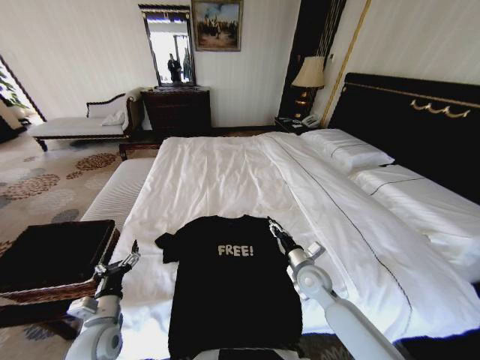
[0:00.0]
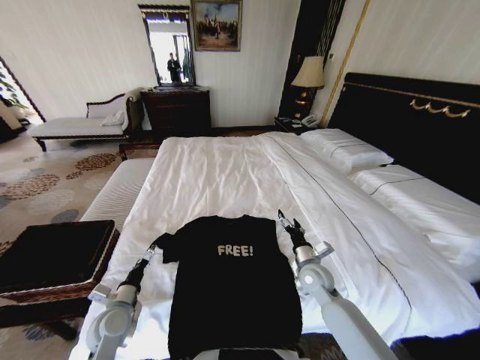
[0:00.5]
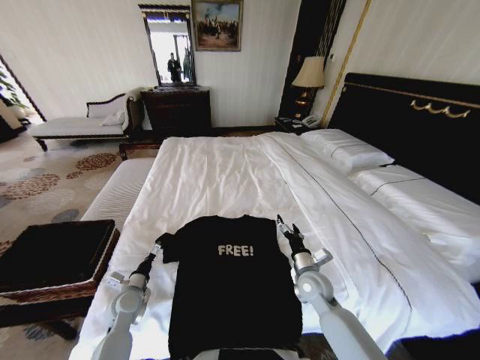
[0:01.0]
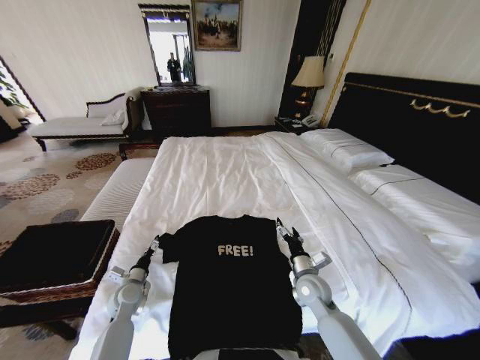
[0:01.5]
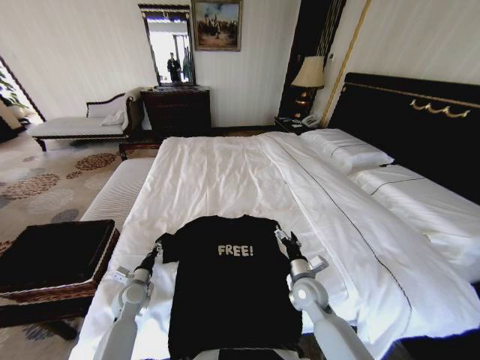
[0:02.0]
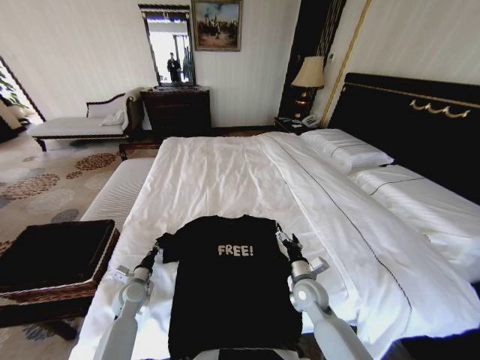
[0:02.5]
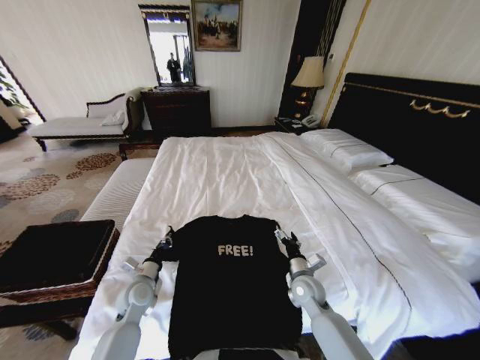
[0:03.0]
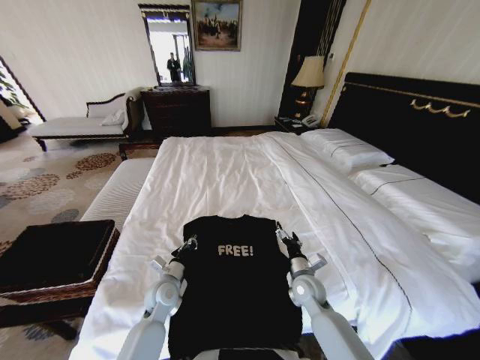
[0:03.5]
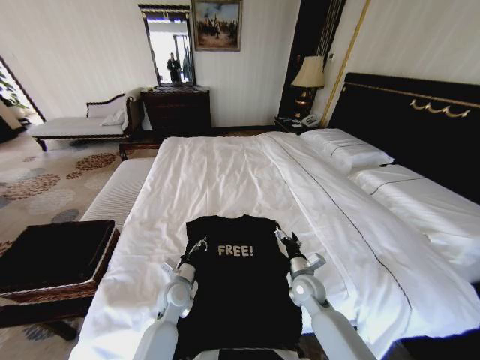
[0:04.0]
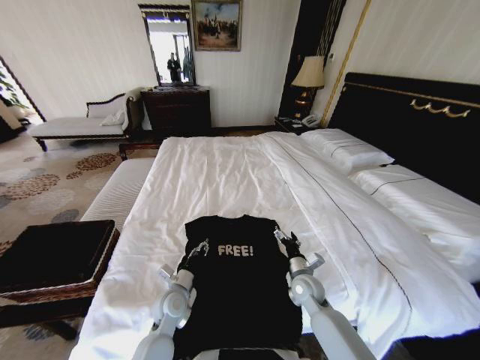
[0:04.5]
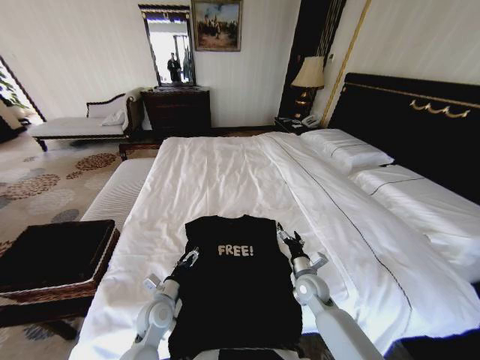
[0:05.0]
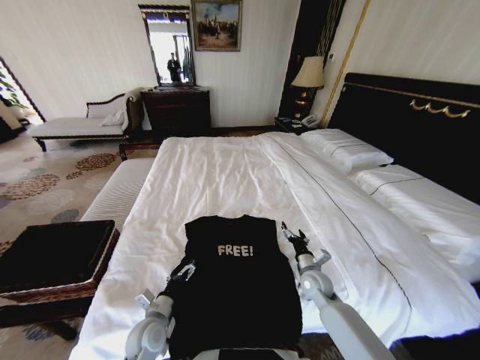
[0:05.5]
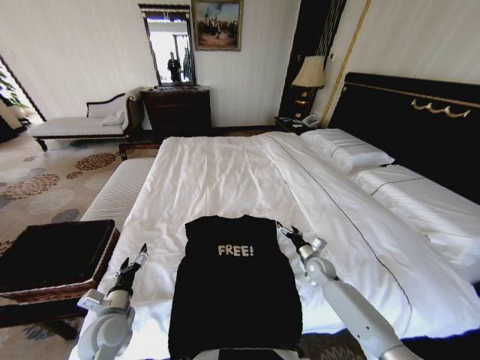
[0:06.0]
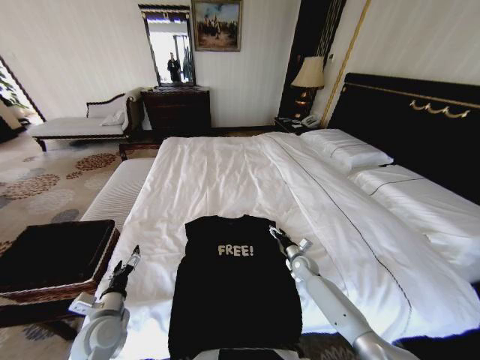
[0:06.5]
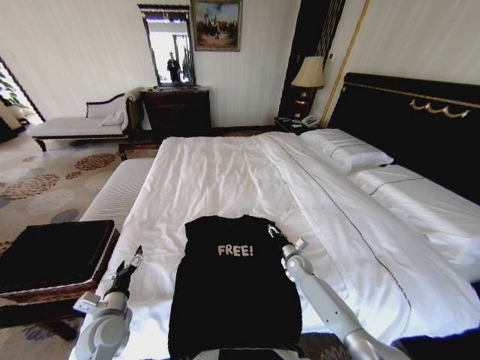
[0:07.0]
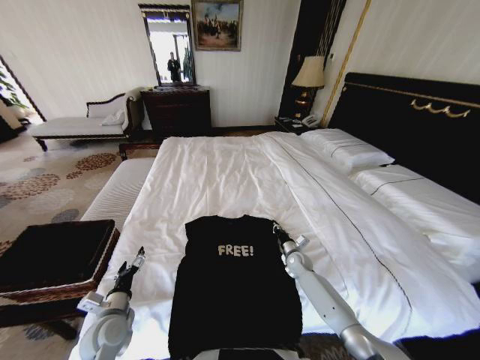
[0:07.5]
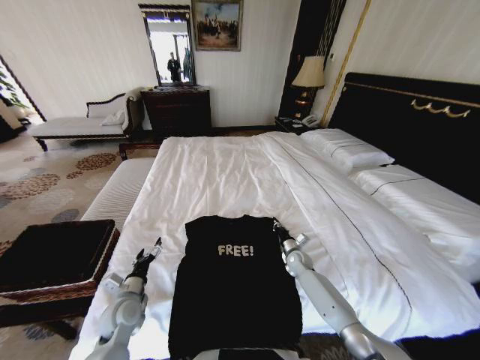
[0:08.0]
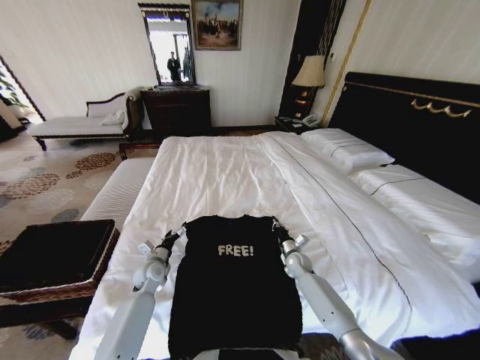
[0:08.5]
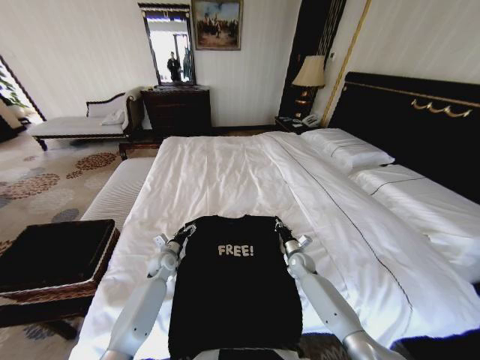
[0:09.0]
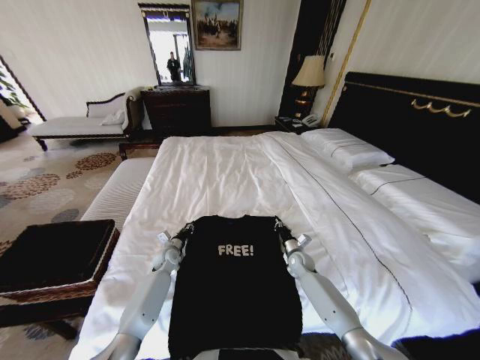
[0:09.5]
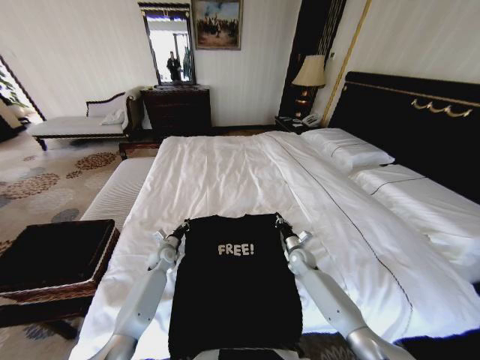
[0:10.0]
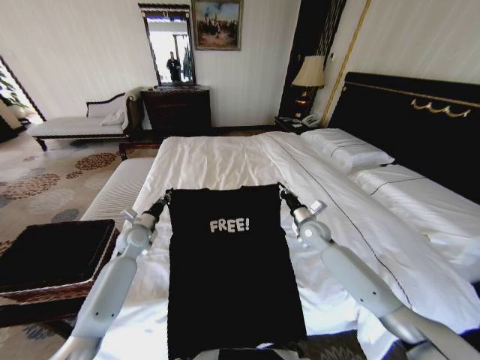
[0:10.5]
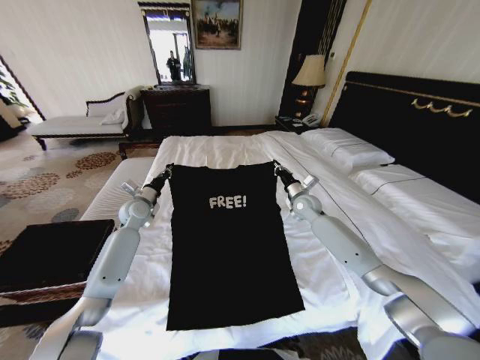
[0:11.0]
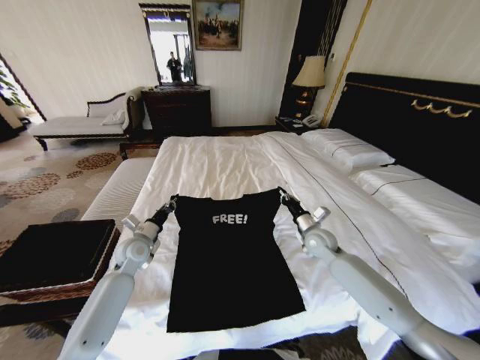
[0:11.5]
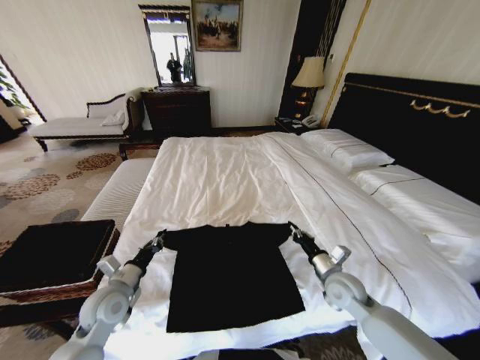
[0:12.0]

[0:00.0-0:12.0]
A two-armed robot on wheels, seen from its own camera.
Task of the whole recording: Fold the clothes on the bed and place them into the basket.
0:00.0 to 0:02.0: The left gripper travels forward and downward by some 15 cm, and closes. Meanwhile the right gripper opens its fingers.
0:02.0 to 0:04.0: The left gripper travels to the right by about 15 cm, and closes.
0:04.0 to 0:06.0: The left gripper moves to the left and backward, approximately 15 cm, and opens up; the right gripper moves to the right and forward, approximately 15 cm.
0:06.0 to 0:08.0: The right gripper is displaced to the left by roughly 5 cm, and closes its fingers; the left gripper moves forward, approximately 5 cm.
0:08.0 to 0:10.0: The left gripper heads forward, covering approximately 20 cm, and closes up.
0:10.0 to 0:12.0: Both grippers move backward and upward, roughly 20 cm.

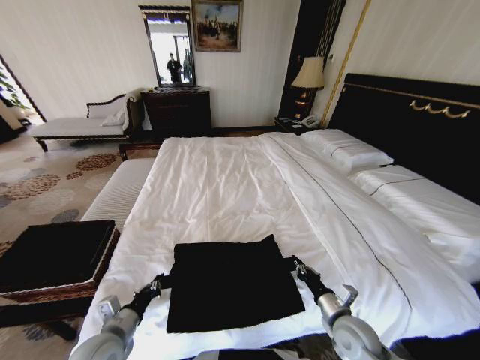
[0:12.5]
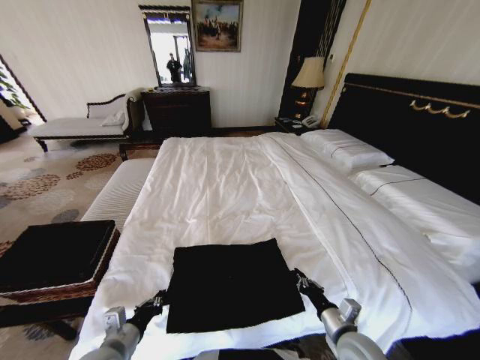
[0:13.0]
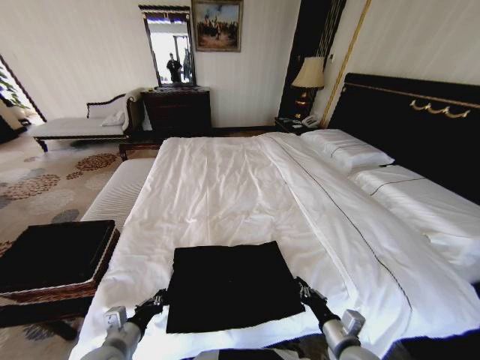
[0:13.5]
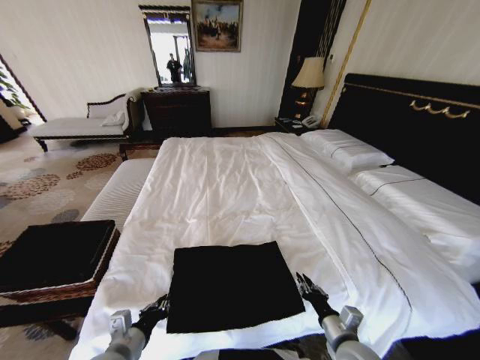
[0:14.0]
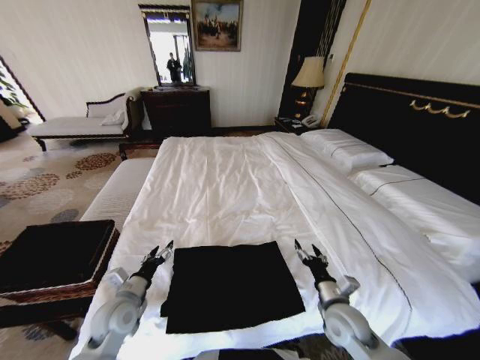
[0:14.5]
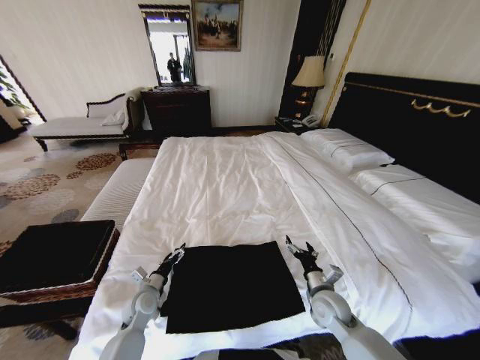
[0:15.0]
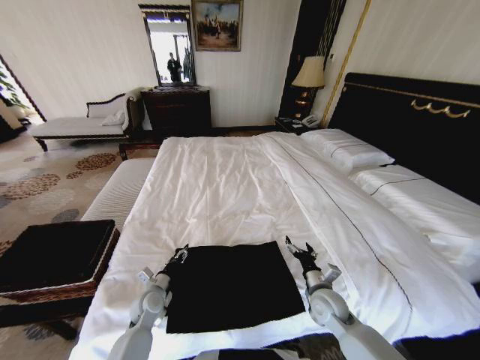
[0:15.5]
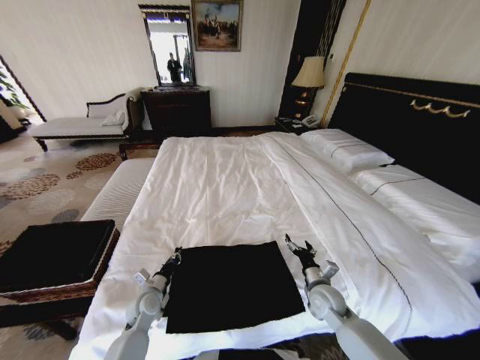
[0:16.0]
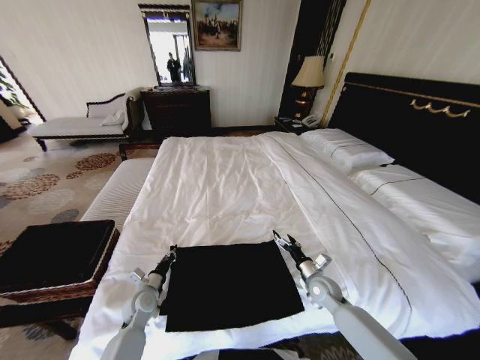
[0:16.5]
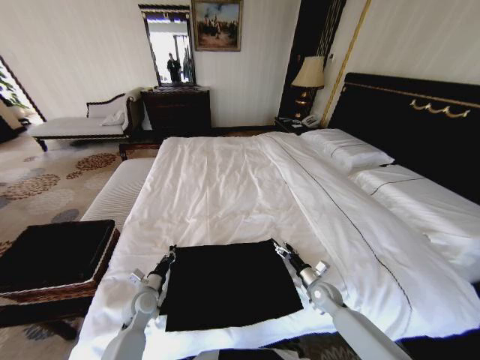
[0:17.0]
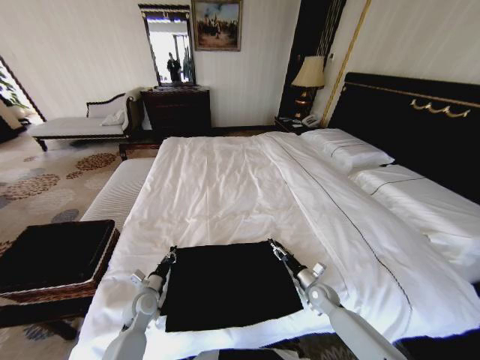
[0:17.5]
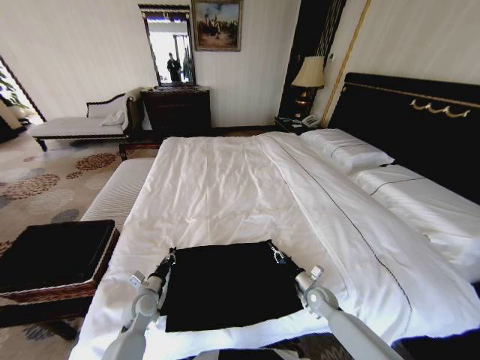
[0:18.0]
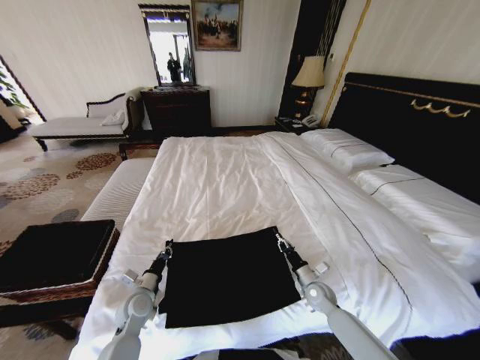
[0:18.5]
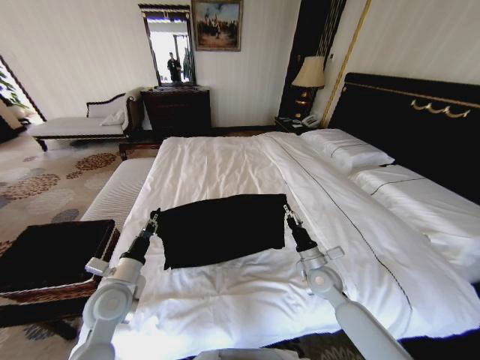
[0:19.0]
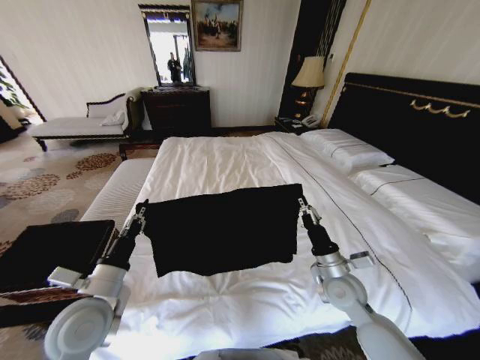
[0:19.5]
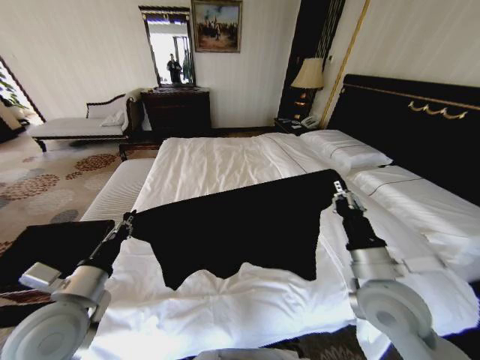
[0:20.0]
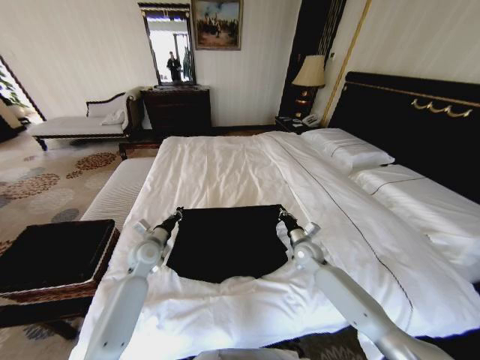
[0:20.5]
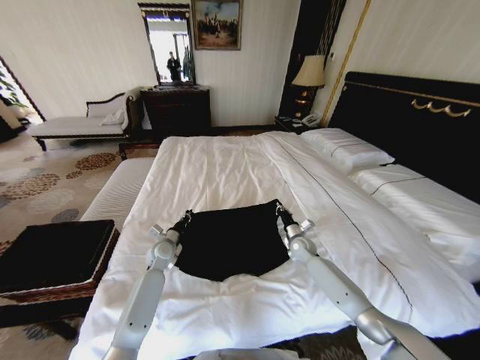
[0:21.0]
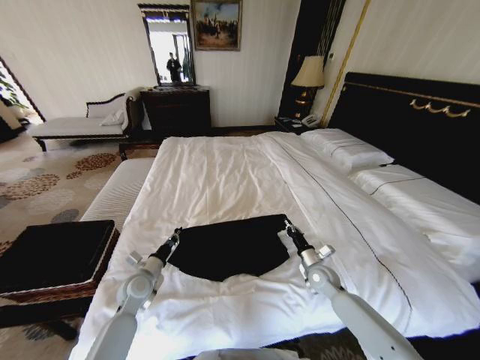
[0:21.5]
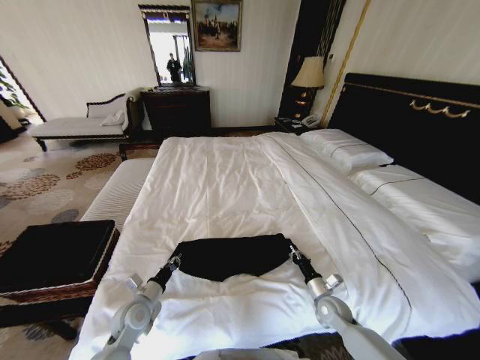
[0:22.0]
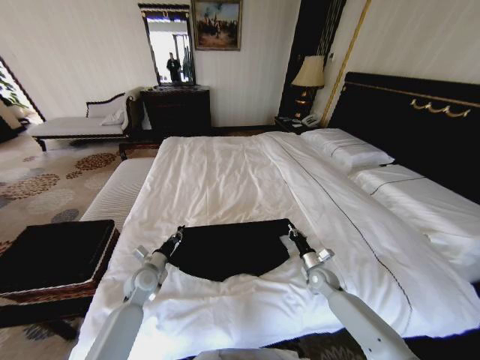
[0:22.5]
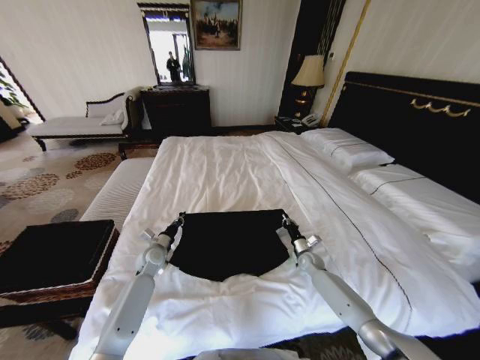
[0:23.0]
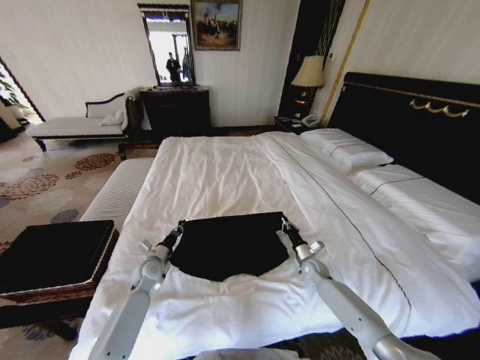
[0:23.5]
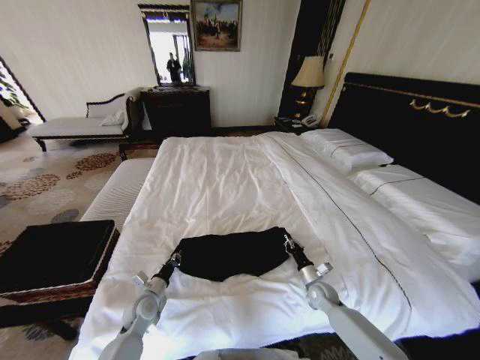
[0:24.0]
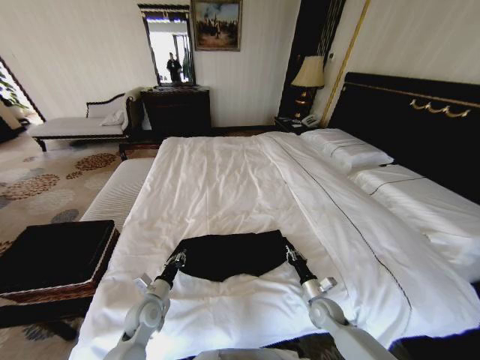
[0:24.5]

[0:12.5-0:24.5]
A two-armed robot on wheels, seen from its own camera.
Task of the whole recording: Fold the clothes on the bed and place them into the basket.
0:12.5 to 0:14.5: The right gripper travels backward and back again, about 5 cm each way, and opens up. Meanwhile the left gripper travels forward by some 5 cm, and opens up.
0:14.5 to 0:16.5: The right gripper is displaced forward and downward by roughly 15 cm. The left gripper is displaced downward and forward by roughly 10 cm, and closes.
0:16.5 to 0:18.5: The right gripper closes up.
0:18.5 to 0:20.5: The right gripper goes about 15 cm upward and forward; the left gripper goes about 15 cm forward and upward.
0:20.5 to 0:22.5: The right gripper moves forward and backward over approximately 20 cm, changing direction 2 times. The left gripper goes forward and backward, some 20 cm each way, reversing 2 times.
0:22.5 to 0:24.5: The left gripper goes forward and returns, about 10 cm each way. Meanwhile the right gripper travels backward by approximately 5 cm.

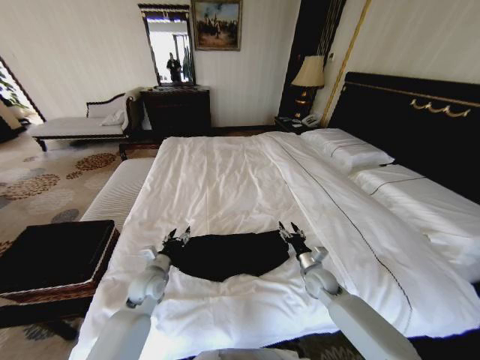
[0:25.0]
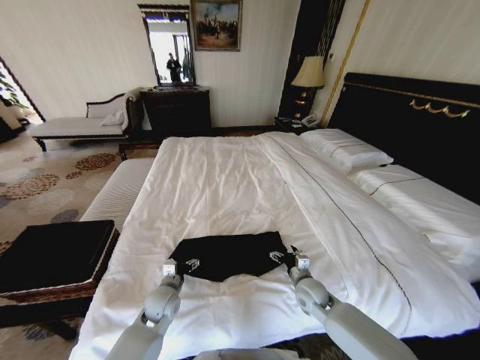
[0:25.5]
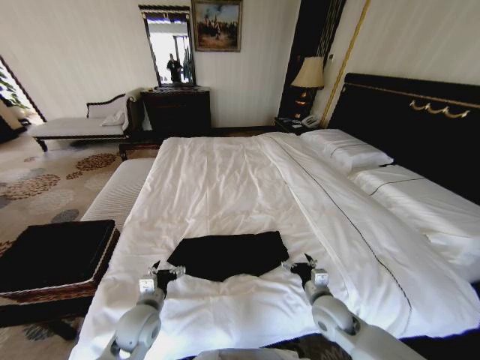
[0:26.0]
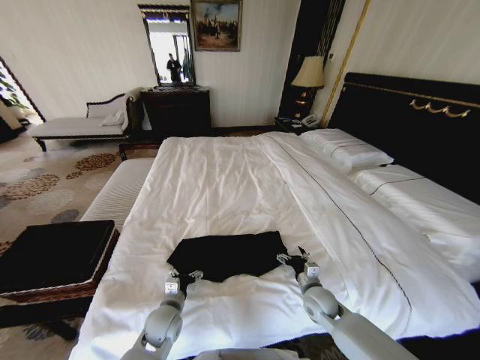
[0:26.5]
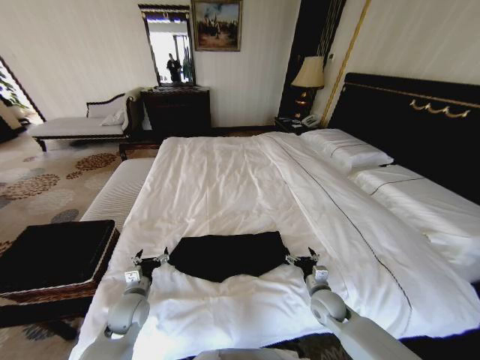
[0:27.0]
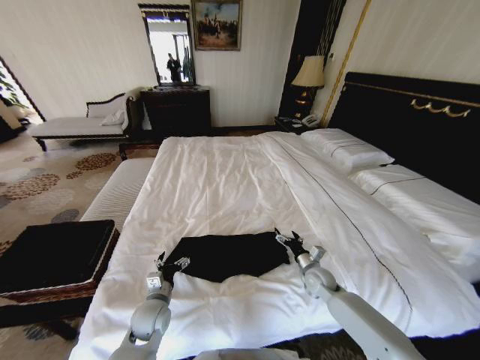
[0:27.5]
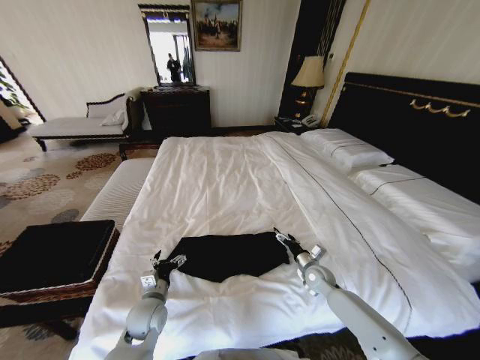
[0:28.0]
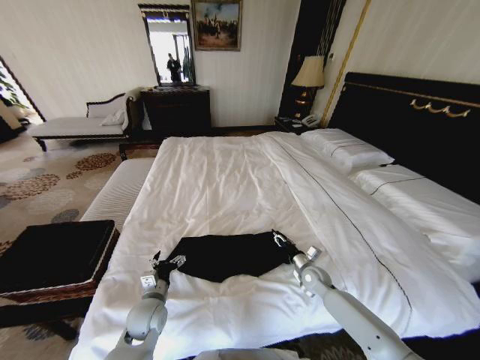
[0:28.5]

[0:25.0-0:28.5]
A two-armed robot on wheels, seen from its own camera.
Task of the whole recording: Fold the clothes on the bed and place them into the basket.
0:25.0 to 0:27.0: The two grippers go roughly 5 cm backward. The right gripper opens up.
0:27.0 to 0:28.5: The right gripper heads forward, covering some 10 cm, and closes up. Meanwhile the left gripper travels to the right by approximately 5 cm.
